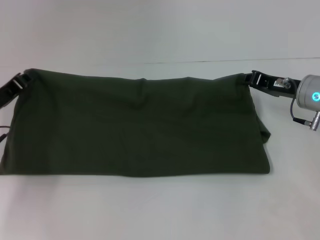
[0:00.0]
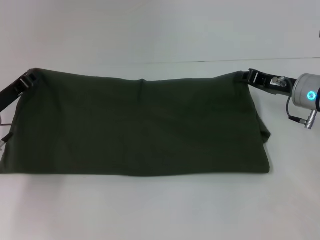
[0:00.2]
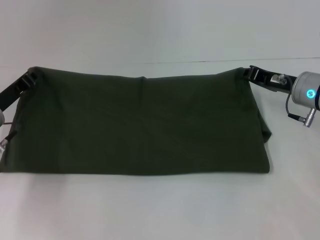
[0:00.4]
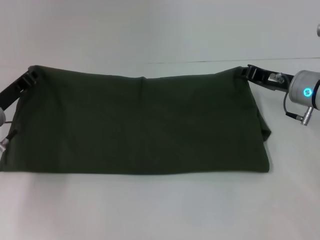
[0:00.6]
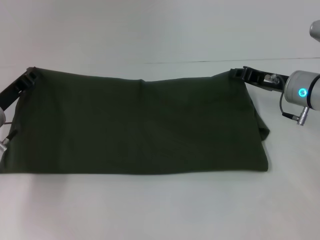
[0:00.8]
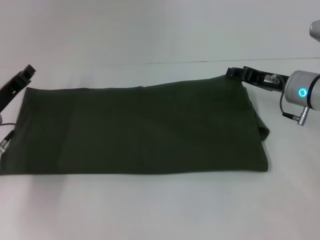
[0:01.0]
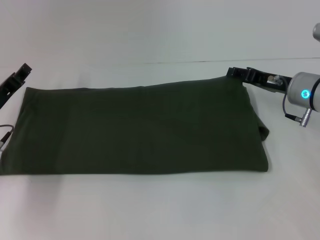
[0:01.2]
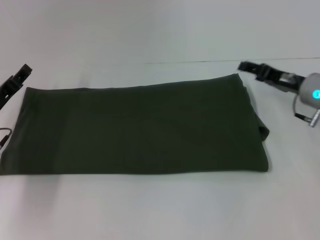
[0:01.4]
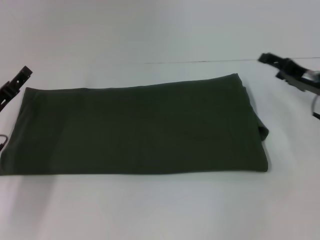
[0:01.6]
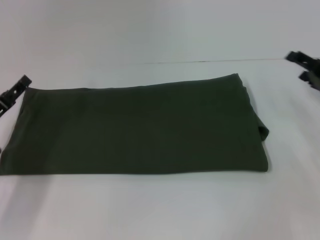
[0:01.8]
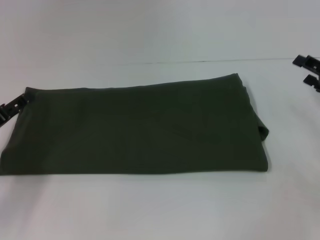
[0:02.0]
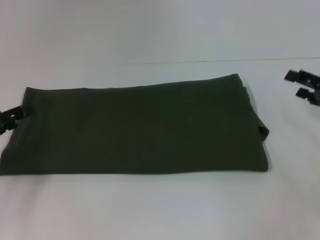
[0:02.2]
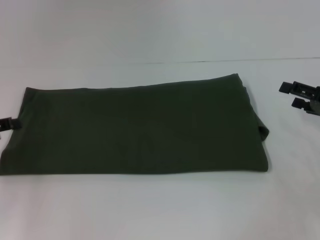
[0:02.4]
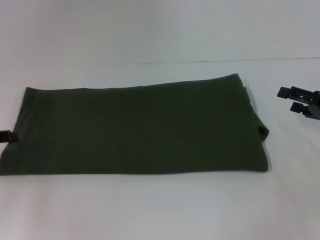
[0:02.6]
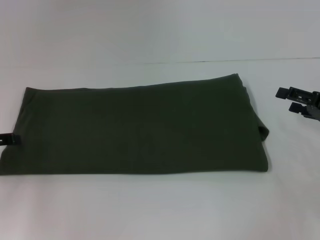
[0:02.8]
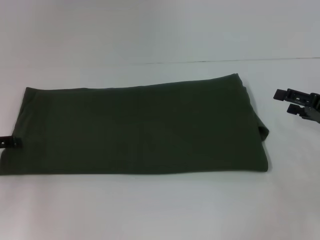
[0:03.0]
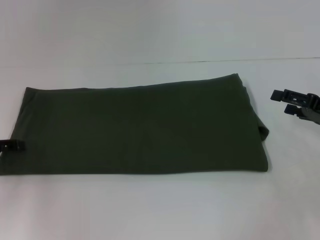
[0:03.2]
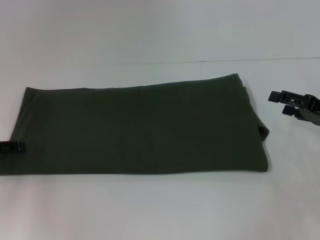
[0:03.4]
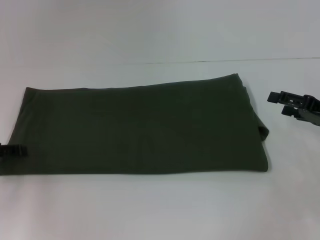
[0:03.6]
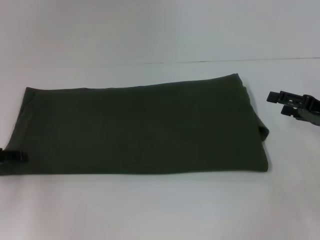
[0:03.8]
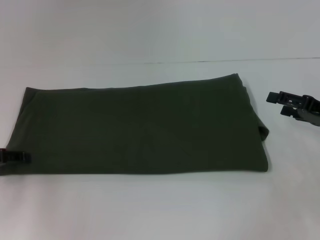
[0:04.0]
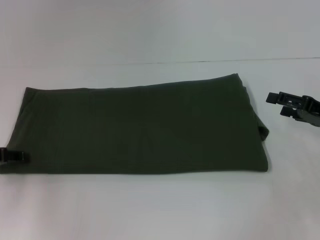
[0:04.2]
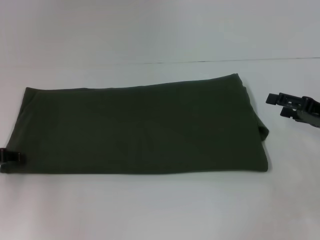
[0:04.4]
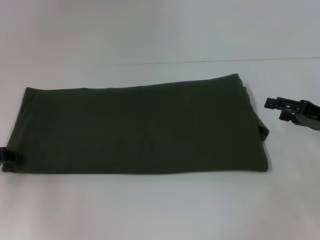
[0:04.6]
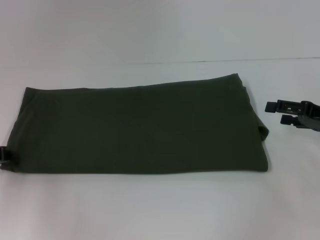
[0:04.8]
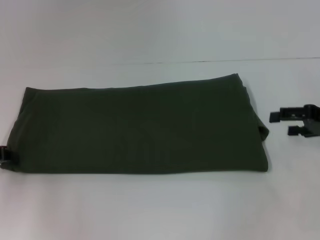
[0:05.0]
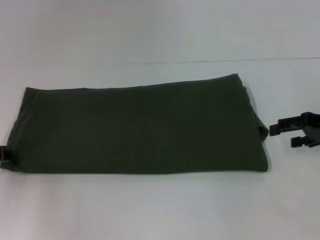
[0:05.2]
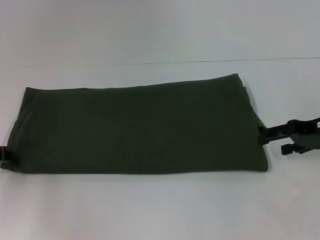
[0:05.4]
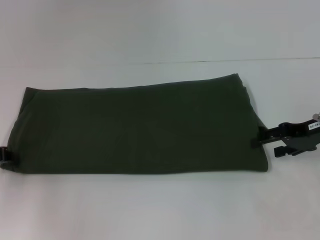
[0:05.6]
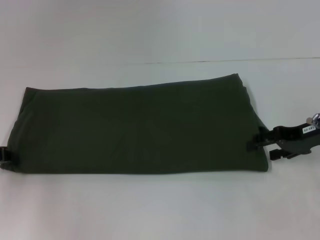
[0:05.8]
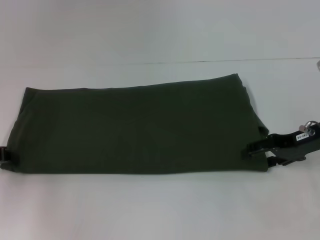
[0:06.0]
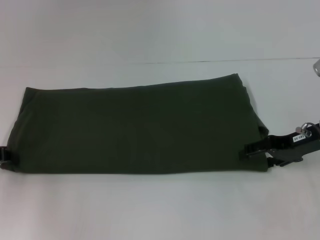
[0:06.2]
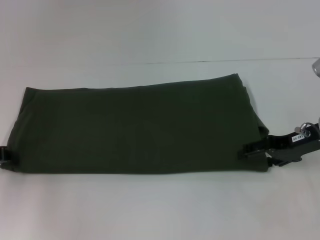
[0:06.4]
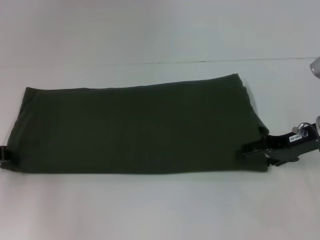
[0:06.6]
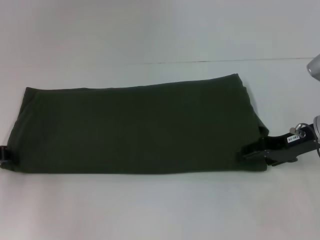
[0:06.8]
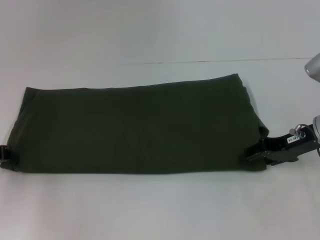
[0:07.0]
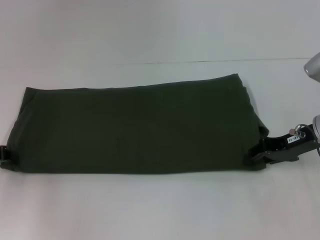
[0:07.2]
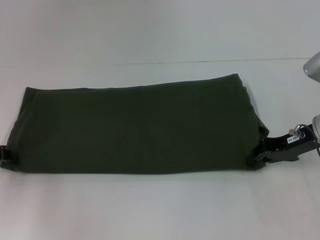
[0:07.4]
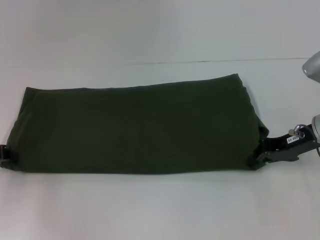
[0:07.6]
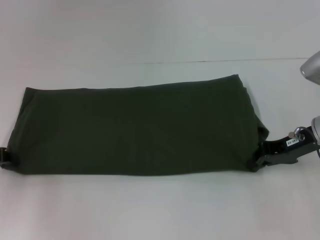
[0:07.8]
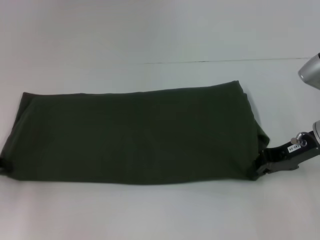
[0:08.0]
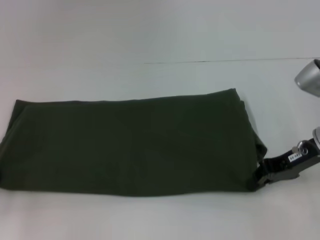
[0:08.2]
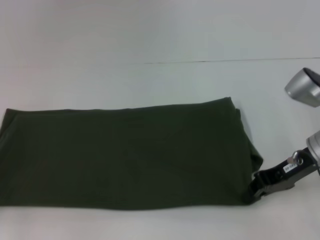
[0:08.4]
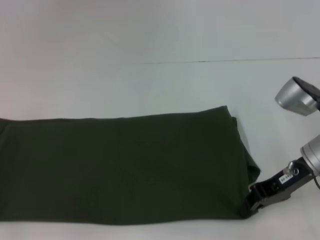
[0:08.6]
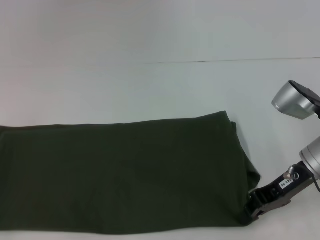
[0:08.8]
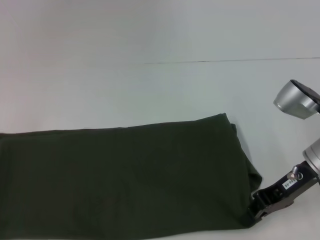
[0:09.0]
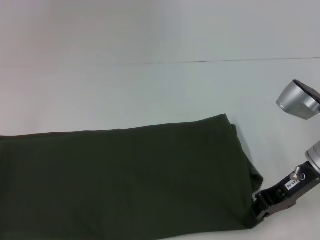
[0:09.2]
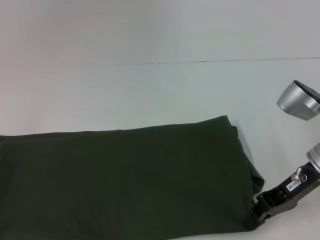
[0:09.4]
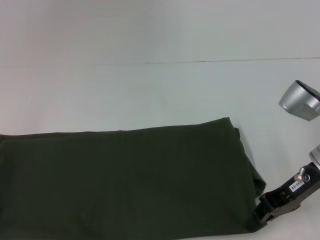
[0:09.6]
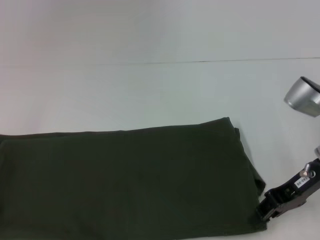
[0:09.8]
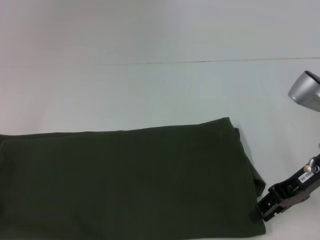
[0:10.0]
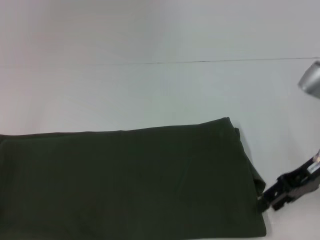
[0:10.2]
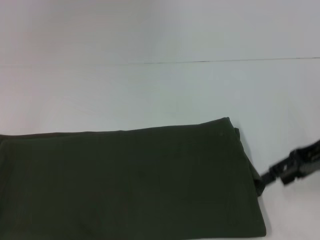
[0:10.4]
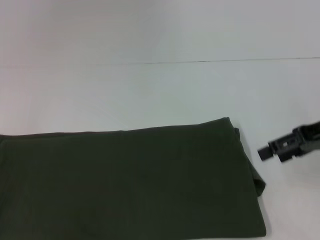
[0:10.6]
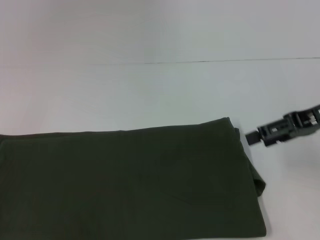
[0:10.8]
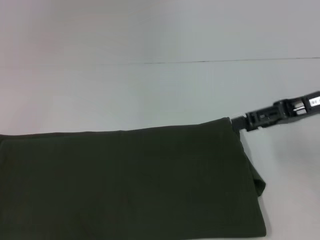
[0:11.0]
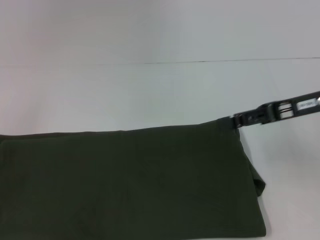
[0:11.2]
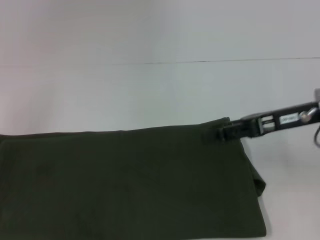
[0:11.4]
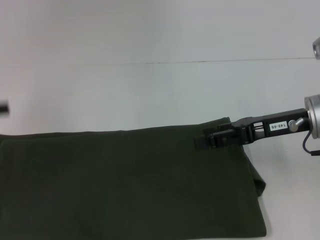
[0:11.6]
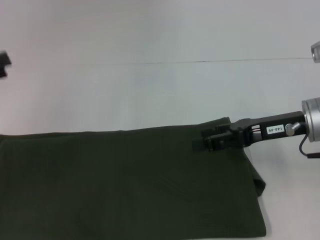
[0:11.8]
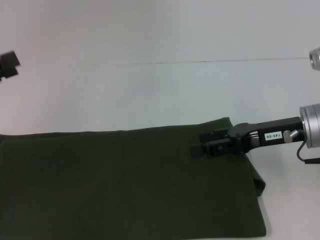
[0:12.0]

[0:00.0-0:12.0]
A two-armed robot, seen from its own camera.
0:00.0 to 0:01.6: The right gripper opens its fingers; the left gripper opens.
0:01.6 to 0:03.0: The left gripper is displaced to the left and upward by some 10 cm, while the right gripper travels backward by approximately 5 cm.
0:03.0 to 0:04.4: The grippers move only a little.
0:04.4 to 0:06.0: The right gripper moves to the left, roughly 5 cm.
0:06.0 to 0:07.6: The right gripper closes.
0:07.6 to 0:09.0: The right gripper ends up roughly 5 cm from where it was. Meanwhile the left gripper shifts approximately 10 cm backward and to the left.
0:09.0 to 0:10.4: The right gripper goes about 10 cm upward and to the right, and opens its fingers.
0:10.4 to 0:12.0: The left gripper travels forward and upward by about 10 cm, and opens its fingers. Meanwhile the right gripper travels to the left by some 5 cm.

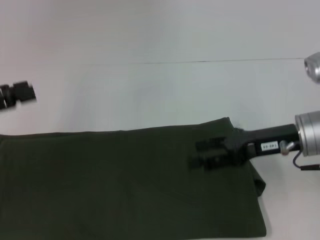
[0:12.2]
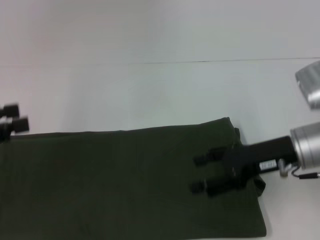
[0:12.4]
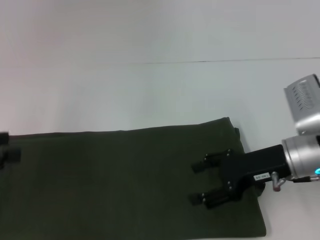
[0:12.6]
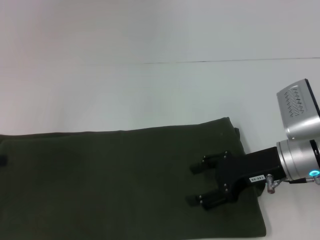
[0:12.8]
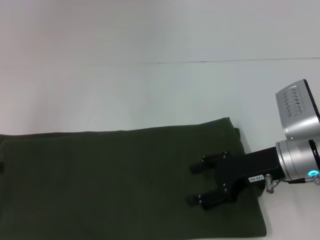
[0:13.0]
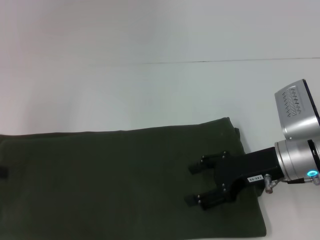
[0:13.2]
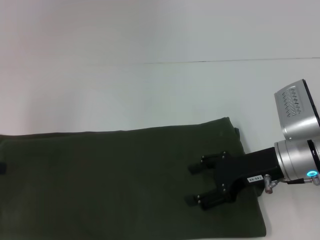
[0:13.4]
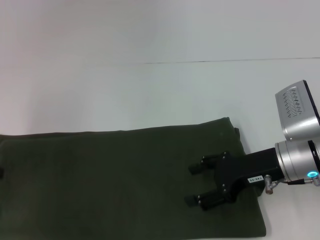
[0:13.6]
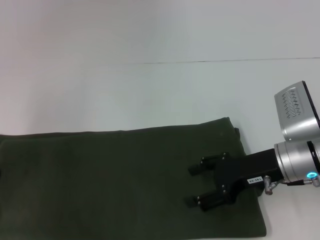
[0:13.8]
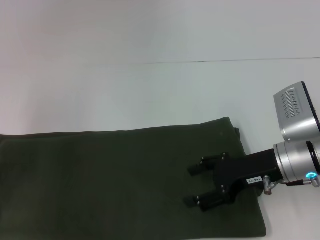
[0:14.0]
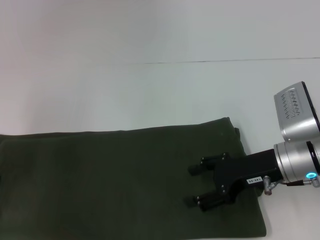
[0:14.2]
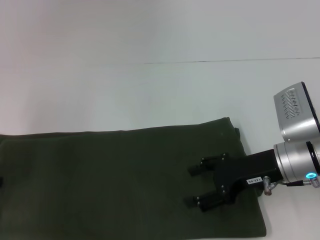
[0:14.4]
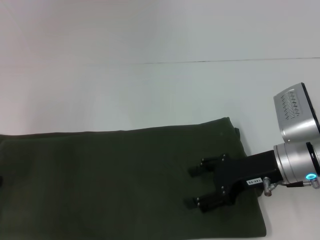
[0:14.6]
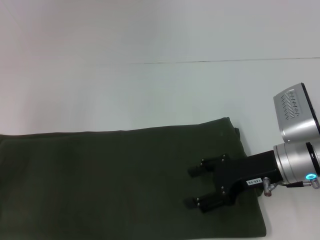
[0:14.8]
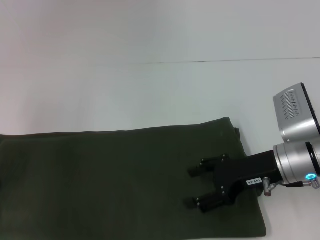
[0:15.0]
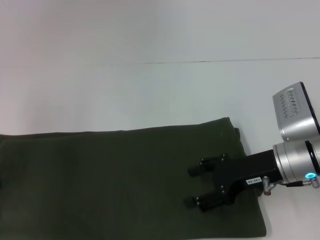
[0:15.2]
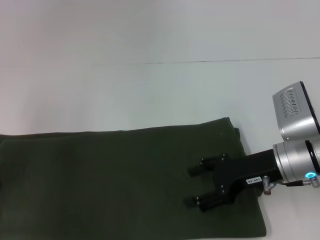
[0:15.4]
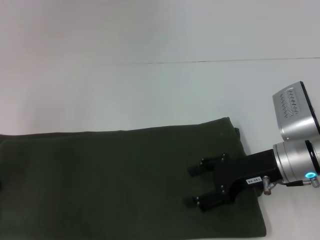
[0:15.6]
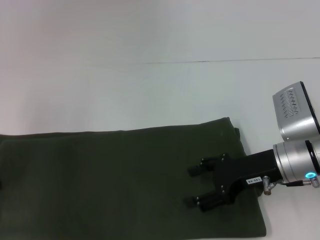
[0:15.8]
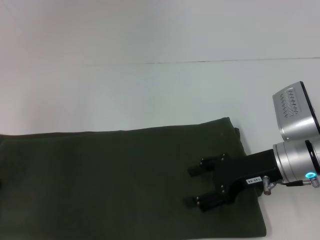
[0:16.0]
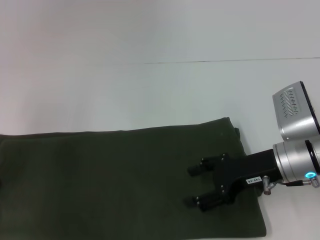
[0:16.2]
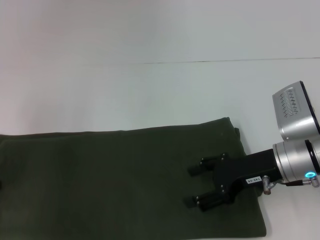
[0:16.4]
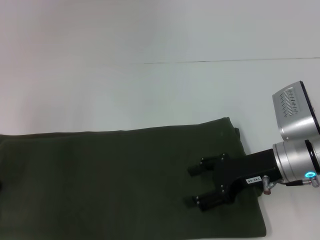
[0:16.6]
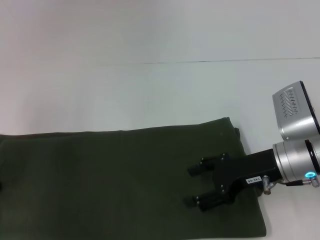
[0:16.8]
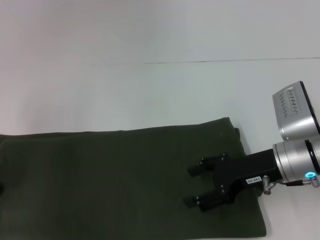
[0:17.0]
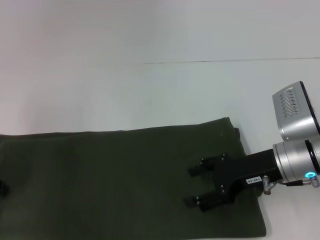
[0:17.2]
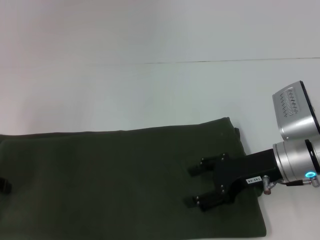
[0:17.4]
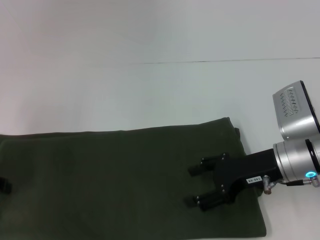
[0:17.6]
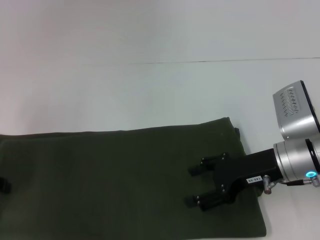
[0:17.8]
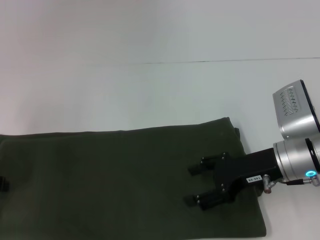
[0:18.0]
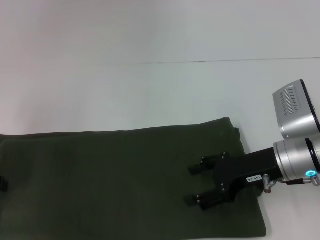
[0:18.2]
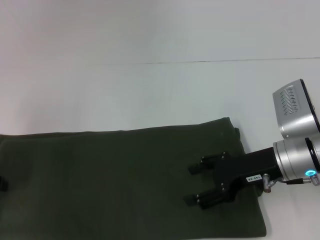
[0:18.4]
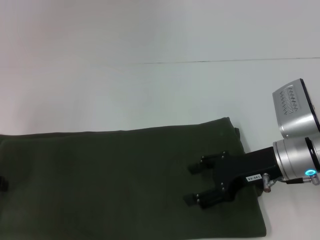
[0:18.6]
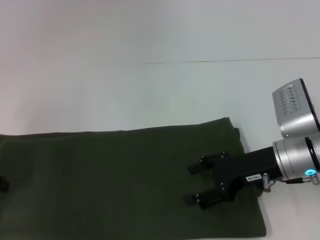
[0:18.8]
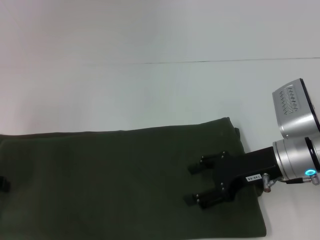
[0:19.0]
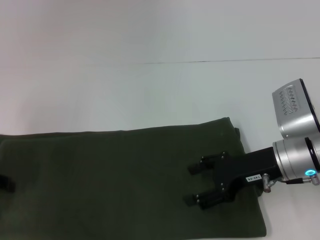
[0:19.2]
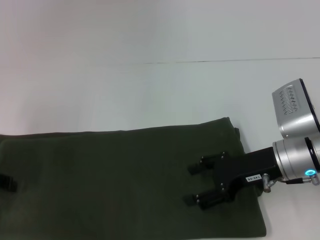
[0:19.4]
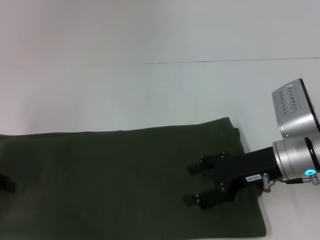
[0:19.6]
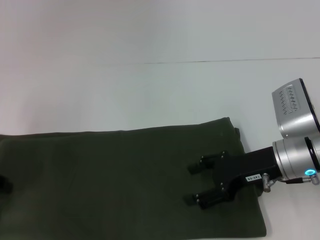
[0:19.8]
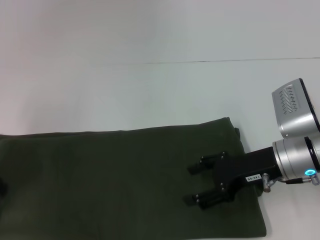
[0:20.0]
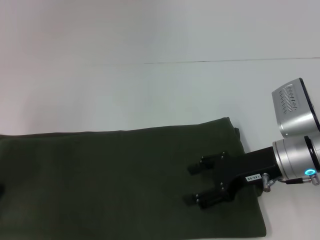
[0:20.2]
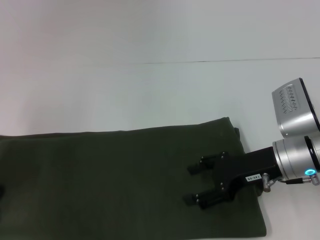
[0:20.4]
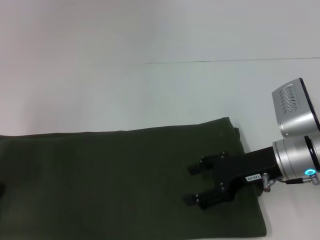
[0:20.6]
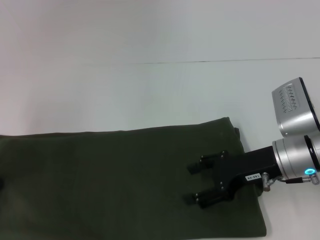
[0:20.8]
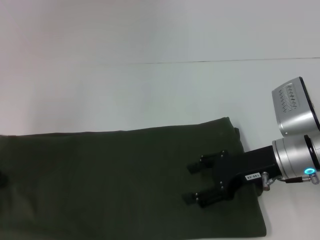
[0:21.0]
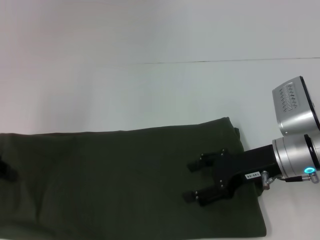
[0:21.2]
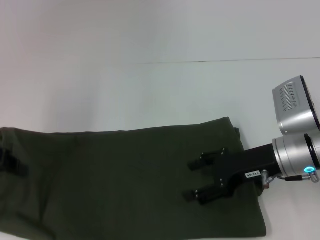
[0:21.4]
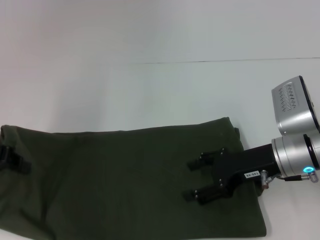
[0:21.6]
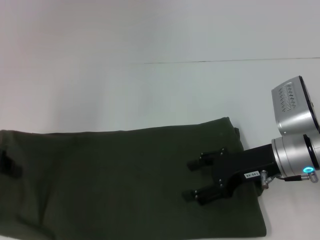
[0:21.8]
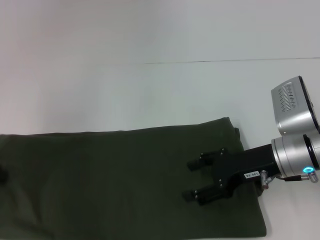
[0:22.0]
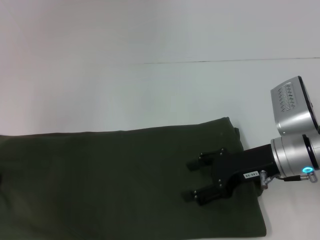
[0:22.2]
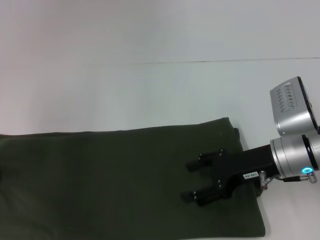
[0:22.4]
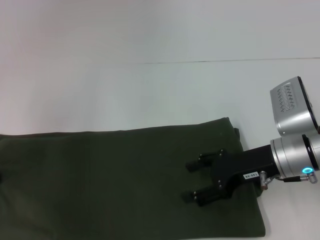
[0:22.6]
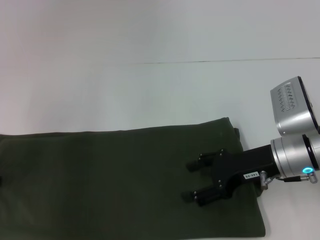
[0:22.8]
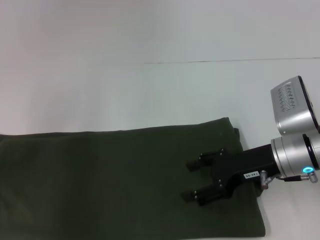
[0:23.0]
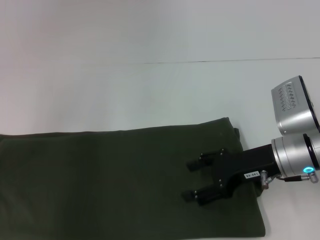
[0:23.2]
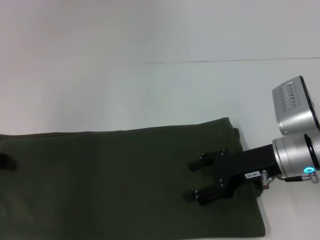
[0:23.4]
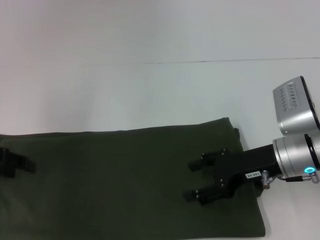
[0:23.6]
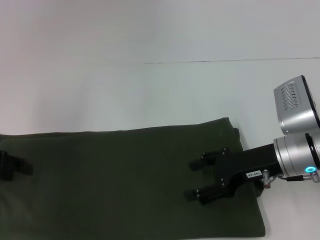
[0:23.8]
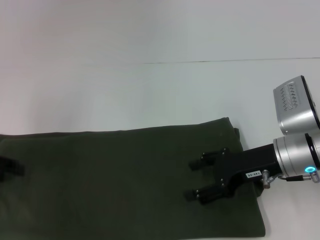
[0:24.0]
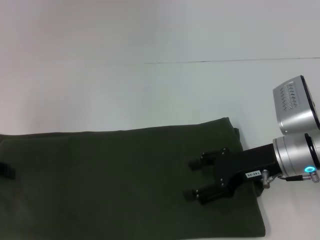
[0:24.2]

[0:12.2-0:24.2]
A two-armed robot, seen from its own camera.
0:13.8 to 0:15.2: There are only small adjustments of the grippers.
0:15.2 to 0:16.6: Both grippers stay put.
0:16.6 to 0:18.2: The grippers make only small movements.
0:18.2 to 0:19.8: Both grippers stay put.
0:21.2 to 0:22.6: The grippers move only a little.
